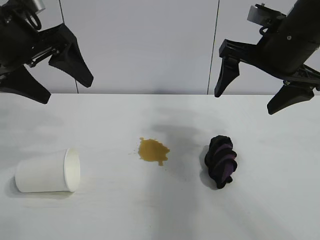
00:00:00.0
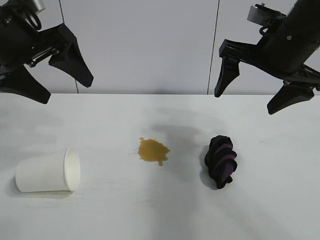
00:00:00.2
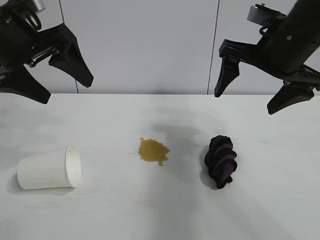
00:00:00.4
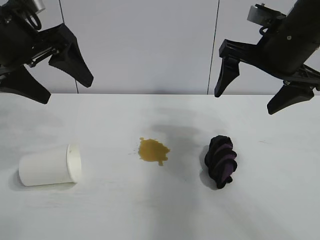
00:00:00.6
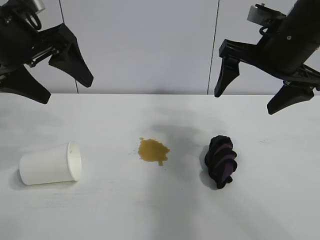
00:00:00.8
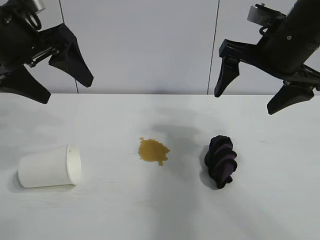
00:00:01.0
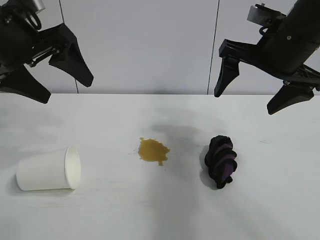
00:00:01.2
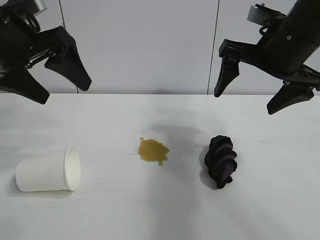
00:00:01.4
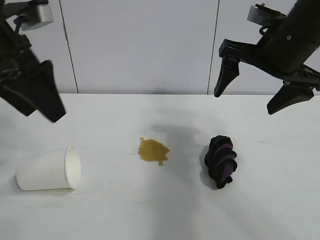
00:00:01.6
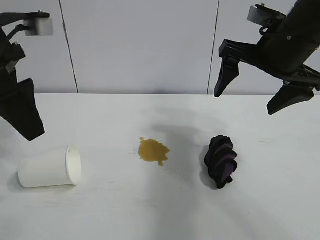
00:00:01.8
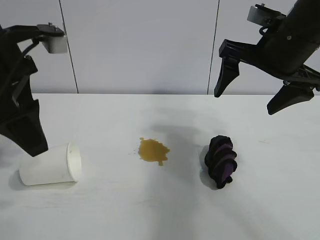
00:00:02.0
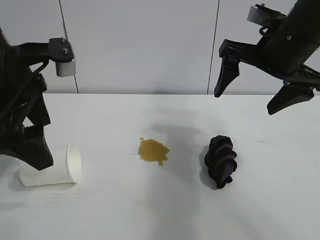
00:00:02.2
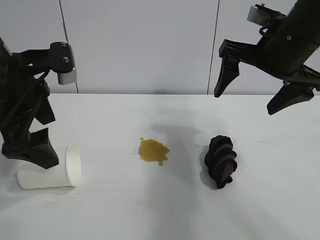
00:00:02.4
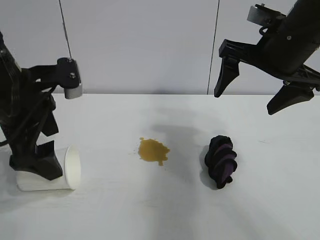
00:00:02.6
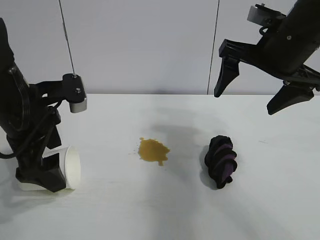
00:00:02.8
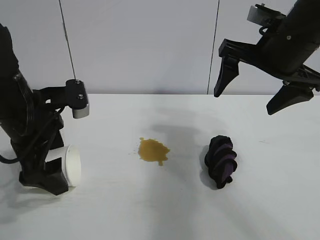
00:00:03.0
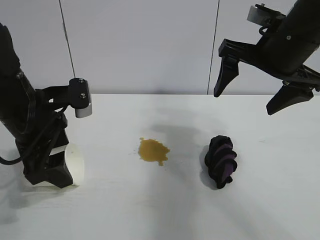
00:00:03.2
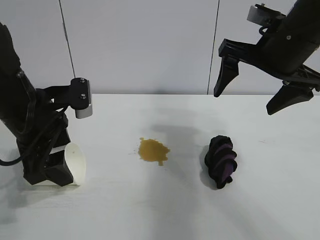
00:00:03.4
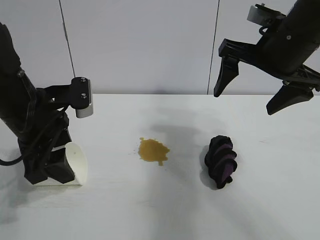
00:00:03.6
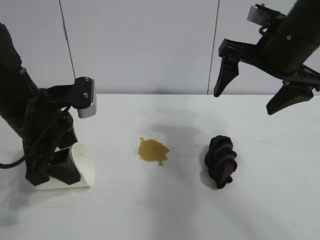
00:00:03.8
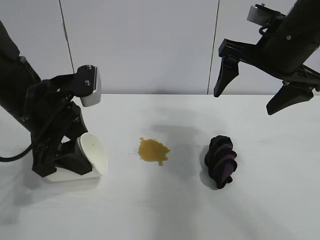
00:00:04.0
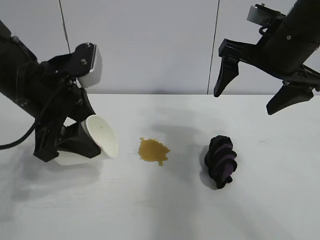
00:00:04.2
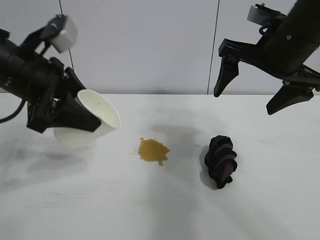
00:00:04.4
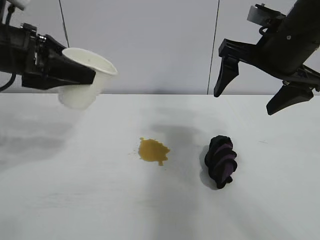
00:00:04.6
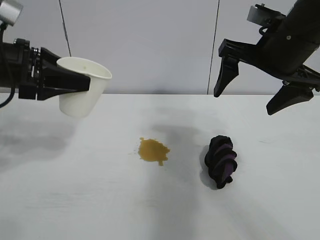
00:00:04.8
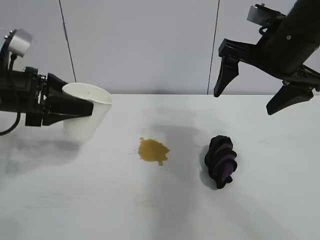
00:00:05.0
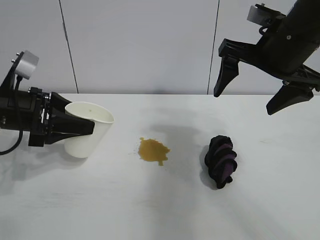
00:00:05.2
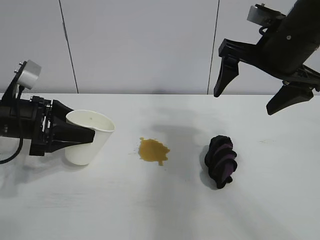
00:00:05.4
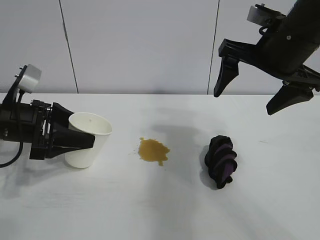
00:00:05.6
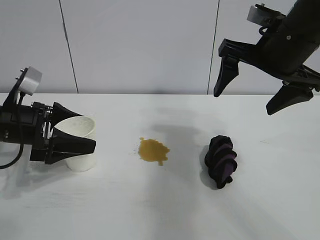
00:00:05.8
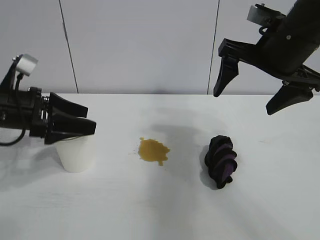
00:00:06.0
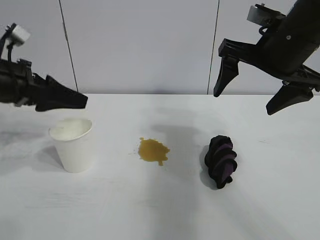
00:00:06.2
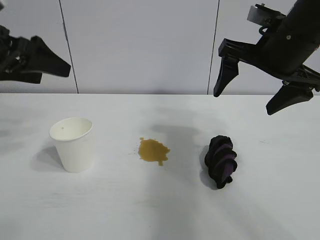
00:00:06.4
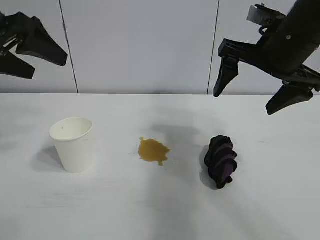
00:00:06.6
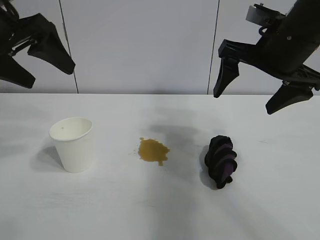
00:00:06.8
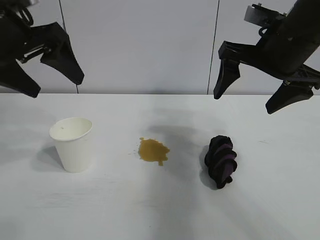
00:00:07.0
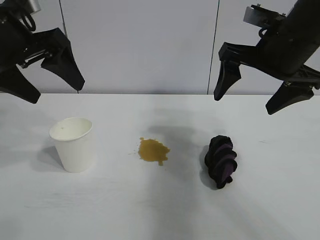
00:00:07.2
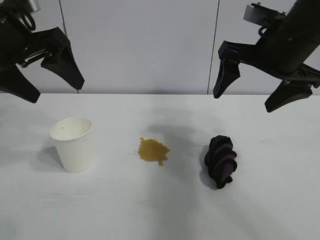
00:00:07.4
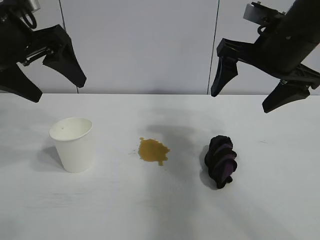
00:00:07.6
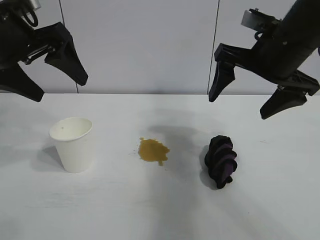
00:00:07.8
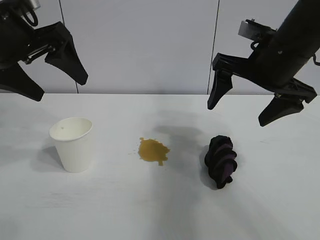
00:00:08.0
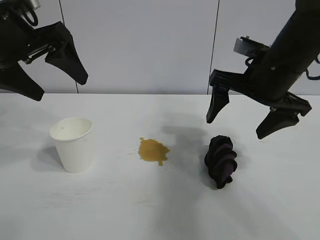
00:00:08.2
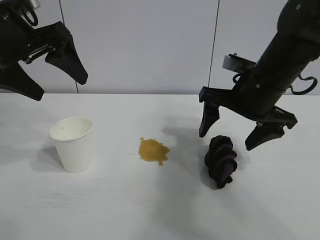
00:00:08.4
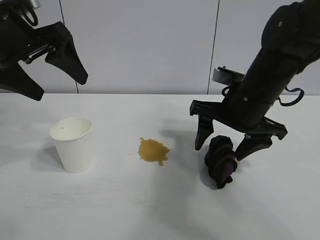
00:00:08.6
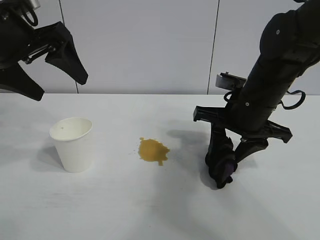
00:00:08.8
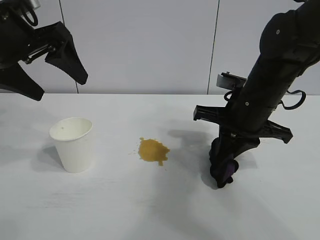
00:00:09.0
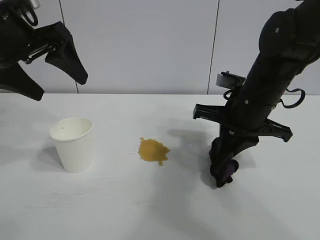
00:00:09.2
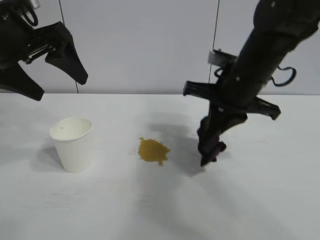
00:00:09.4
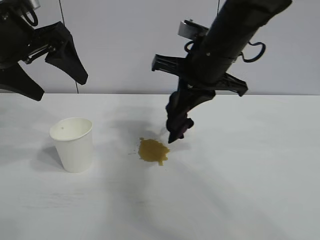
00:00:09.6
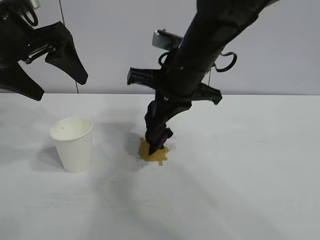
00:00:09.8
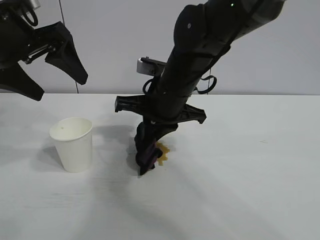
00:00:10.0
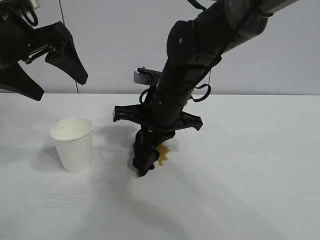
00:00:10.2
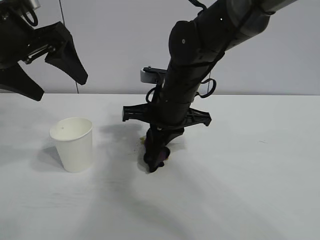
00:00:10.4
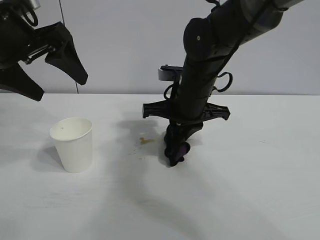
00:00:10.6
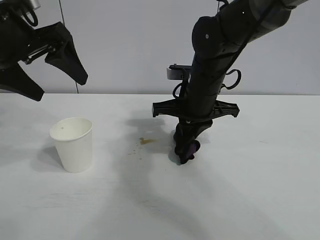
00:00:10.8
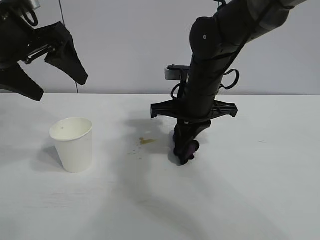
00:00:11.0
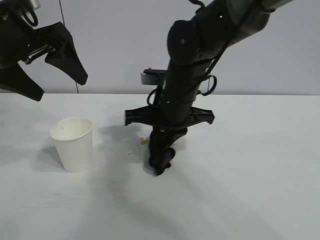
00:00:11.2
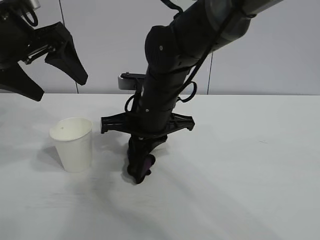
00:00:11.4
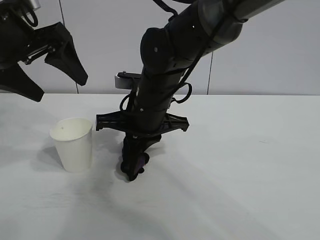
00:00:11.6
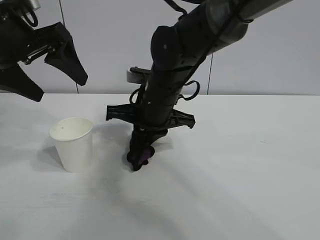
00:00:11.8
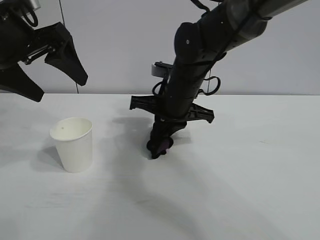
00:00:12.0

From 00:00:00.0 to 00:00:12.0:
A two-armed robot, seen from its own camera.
Task of the whole recording: the left gripper pick up the fallen cup and place it upright, the right gripper grasp the black rag and wipe the stain on the table, the right gripper put the black rag back in its original position.
Step, from 00:00:01.4 to 00:00:03.6: Grasp the paper cup with left gripper.
Step, from 00:00:03.8 to 00:00:05.8: Stand the paper cup upright with left gripper.
Step, from 00:00:06.0 to 00:00:09.0: Grasp the rag with right gripper.

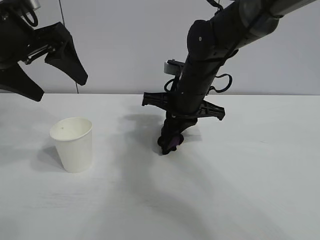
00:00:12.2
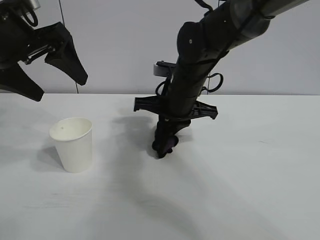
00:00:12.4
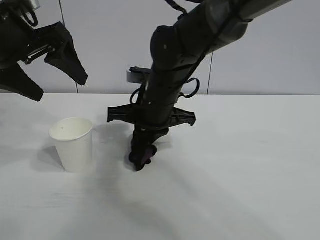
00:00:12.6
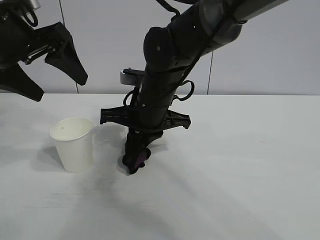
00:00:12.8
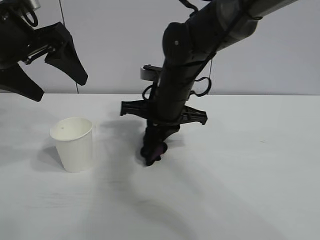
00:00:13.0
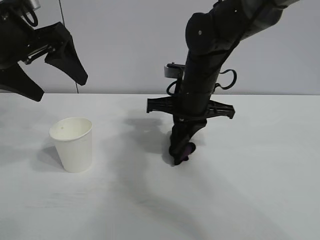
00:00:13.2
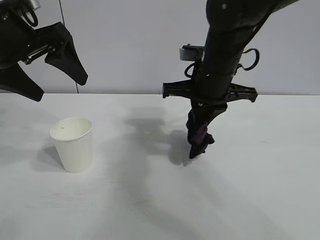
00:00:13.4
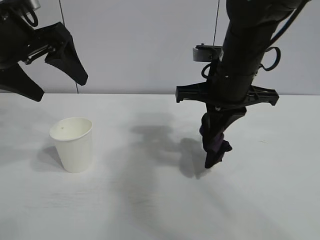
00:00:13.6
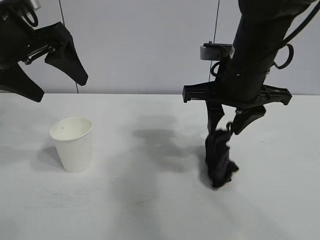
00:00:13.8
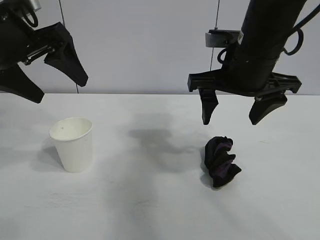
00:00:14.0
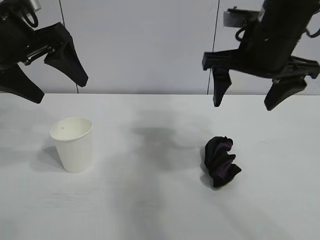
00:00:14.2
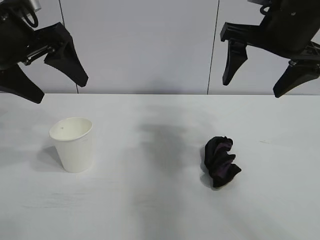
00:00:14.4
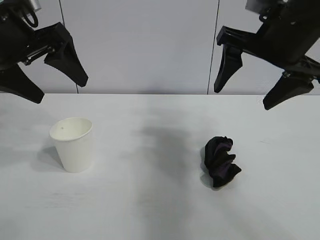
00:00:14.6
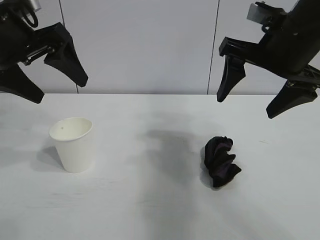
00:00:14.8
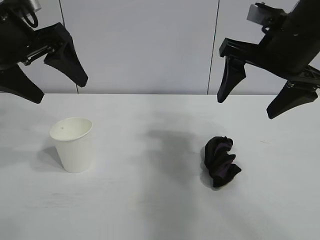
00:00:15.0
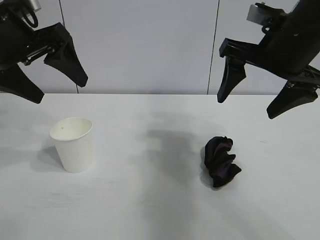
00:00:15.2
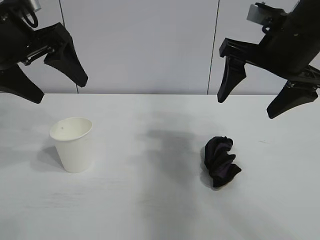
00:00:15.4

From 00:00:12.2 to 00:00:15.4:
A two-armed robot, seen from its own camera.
Task of the whole recording: the left gripper pick up the fallen cup and place it upright, the right gripper grasp the black rag and wipe the stain on the table, the right gripper put the black rag back in its original position.
Step, from 00:00:13.2 to 00:00:13.8: Place the rag on the table with right gripper.
